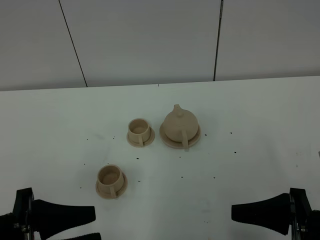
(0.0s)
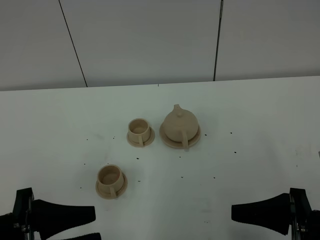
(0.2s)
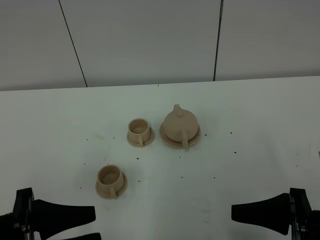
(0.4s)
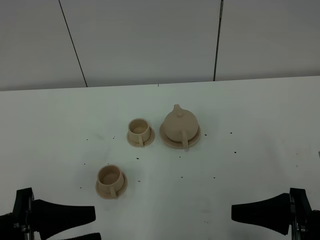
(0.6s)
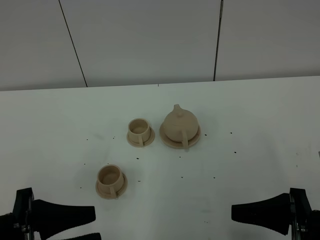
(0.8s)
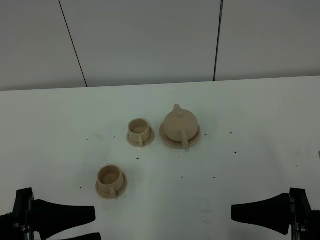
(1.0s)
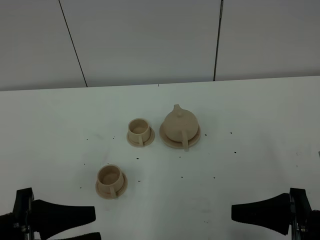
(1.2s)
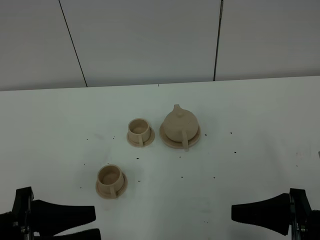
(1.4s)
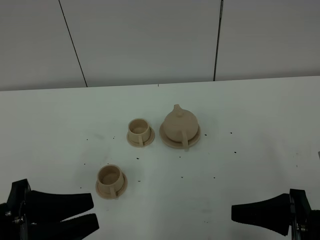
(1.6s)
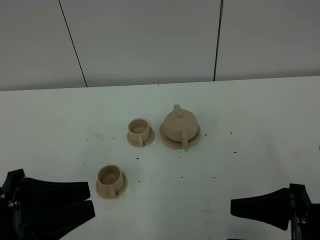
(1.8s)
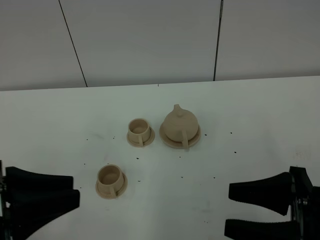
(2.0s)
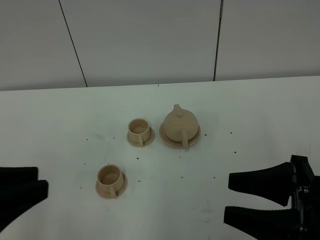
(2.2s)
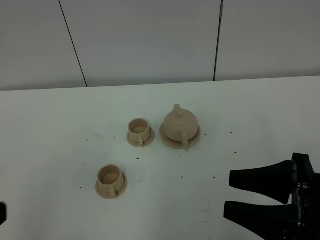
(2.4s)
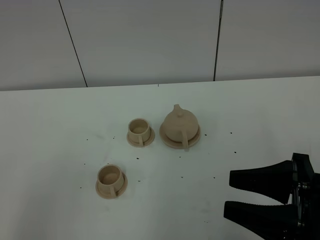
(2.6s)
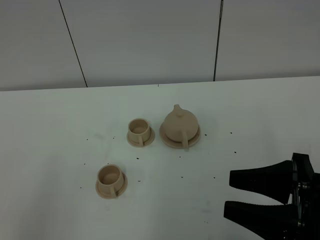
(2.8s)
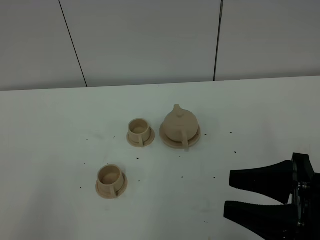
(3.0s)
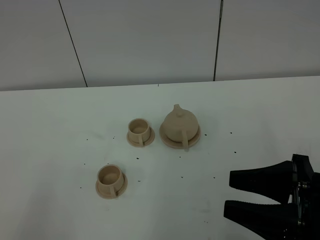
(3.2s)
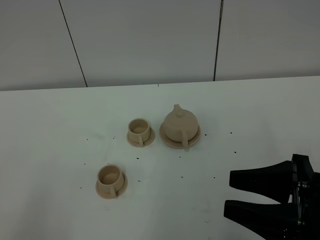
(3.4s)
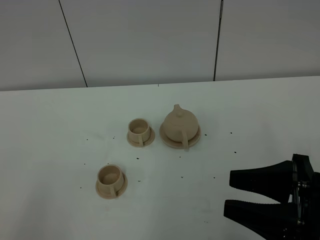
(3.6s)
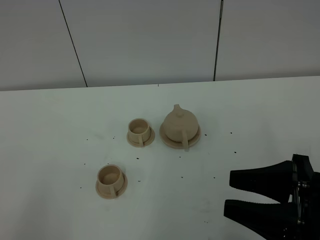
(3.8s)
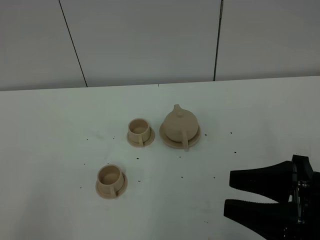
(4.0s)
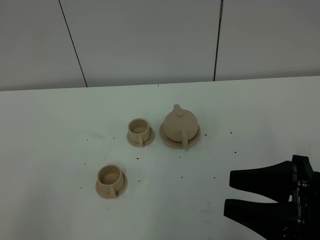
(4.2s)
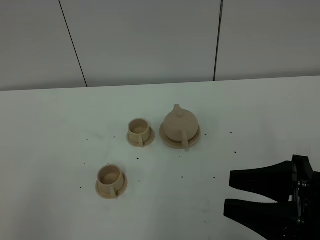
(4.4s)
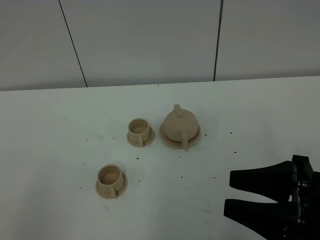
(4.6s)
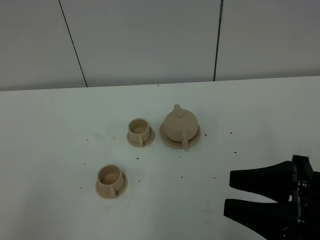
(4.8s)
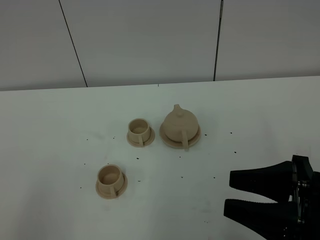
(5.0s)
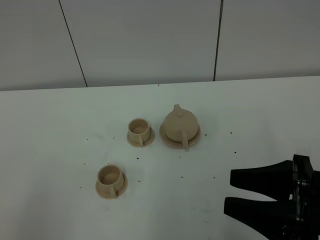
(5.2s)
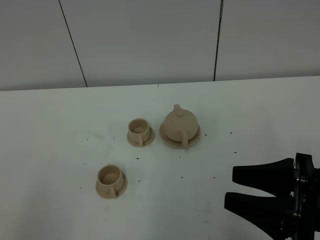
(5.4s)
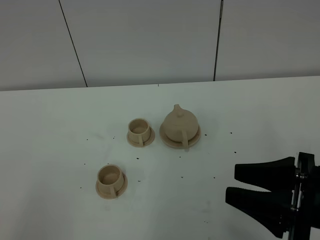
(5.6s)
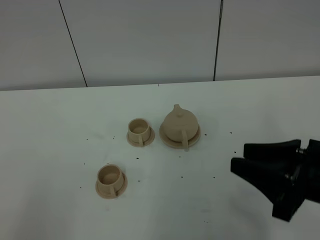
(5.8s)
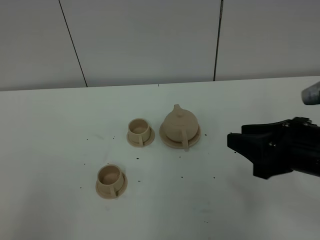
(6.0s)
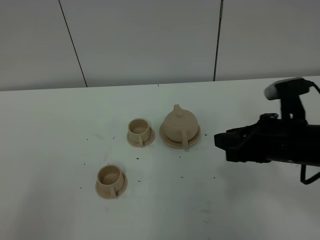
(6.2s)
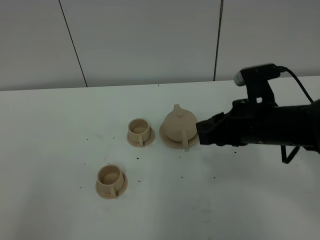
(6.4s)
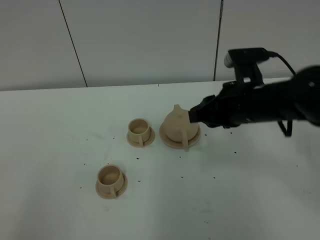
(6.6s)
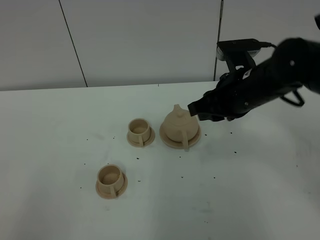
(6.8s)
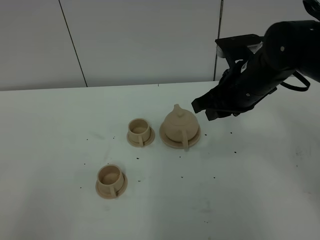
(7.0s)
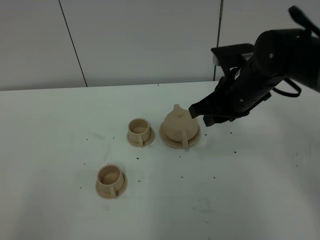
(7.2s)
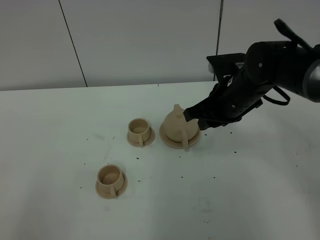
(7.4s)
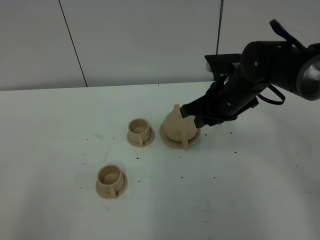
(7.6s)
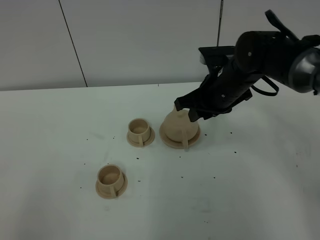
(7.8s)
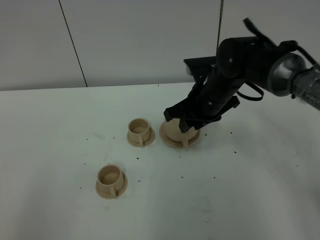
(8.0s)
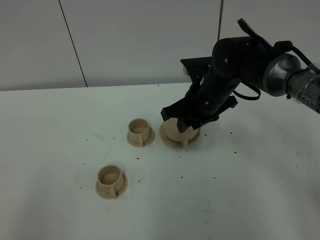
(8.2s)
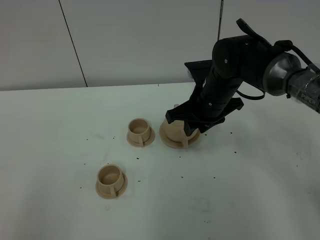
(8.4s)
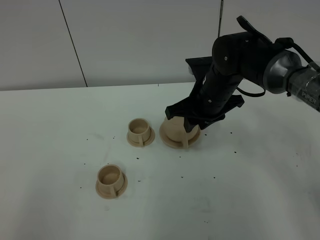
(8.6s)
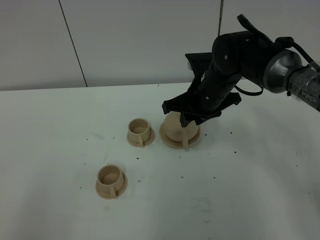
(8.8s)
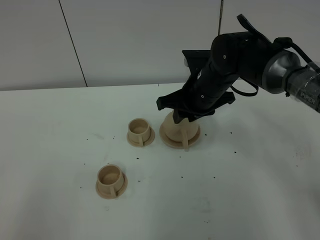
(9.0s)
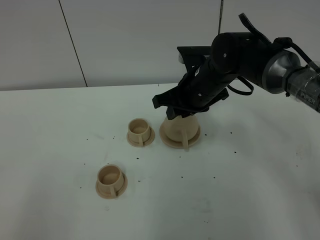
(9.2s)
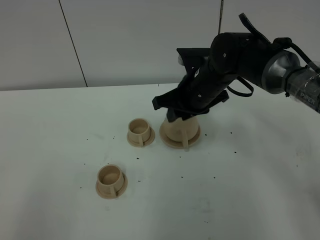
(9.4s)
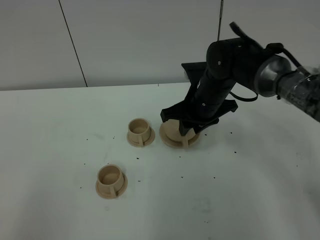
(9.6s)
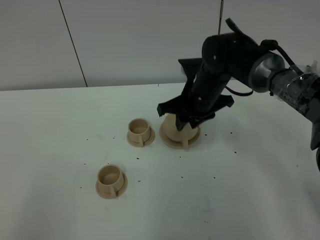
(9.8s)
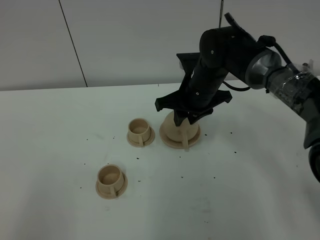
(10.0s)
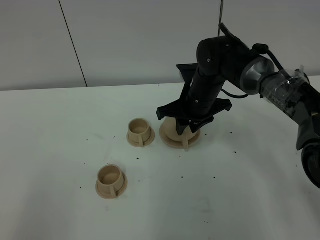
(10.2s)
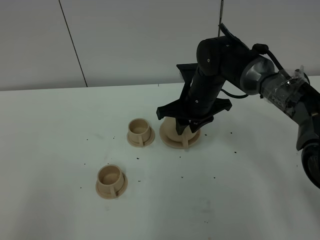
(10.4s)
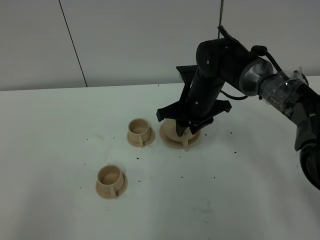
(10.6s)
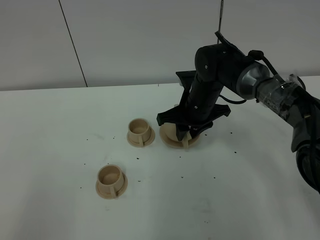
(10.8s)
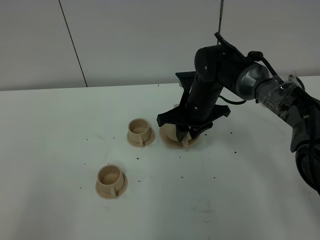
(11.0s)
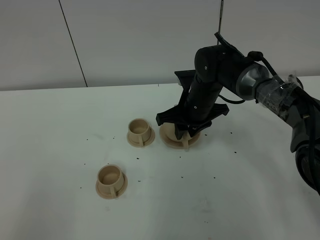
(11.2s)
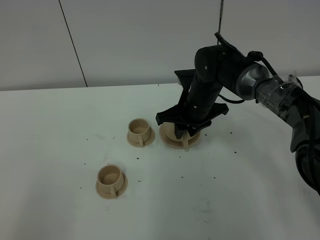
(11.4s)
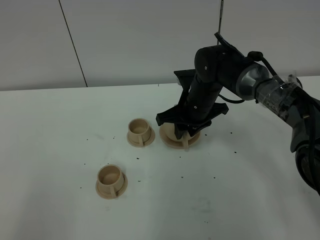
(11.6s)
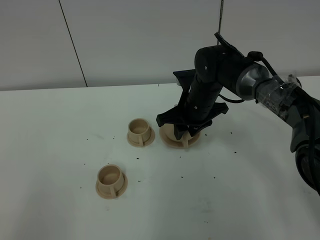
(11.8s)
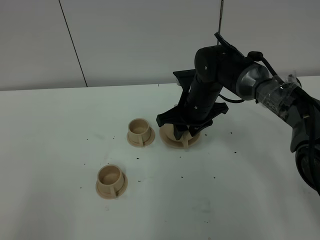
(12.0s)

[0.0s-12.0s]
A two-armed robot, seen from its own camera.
Task of the whole recording: grasp the brown teapot and pour the tea into the two brown teacups one by one, put the brown teapot back in its original place.
0.0s to 1.6s: The grippers make only small movements.
1.6s to 3.0s: The left gripper travels backward and to the left by some 15 cm, and closes up.
4.4s to 6.0s: The right gripper shifts approximately 10 cm forward.
6.0s to 7.6s: The right gripper travels forward and to the left by approximately 20 cm.
7.6s to 9.0s: The grippers make only small movements.
9.0s to 12.0s: The grippers stay close to where they were, moving slightly.

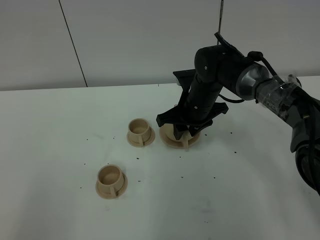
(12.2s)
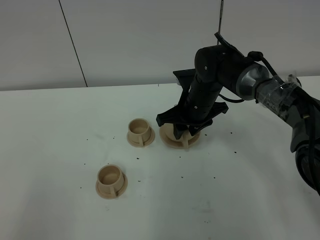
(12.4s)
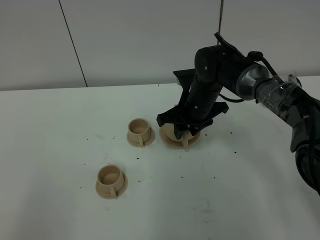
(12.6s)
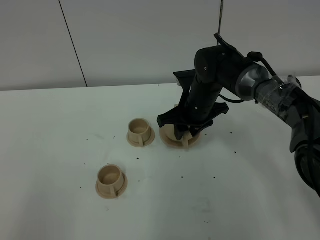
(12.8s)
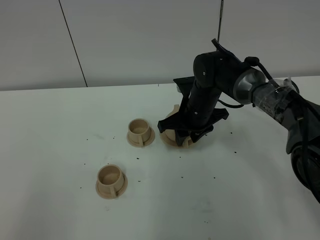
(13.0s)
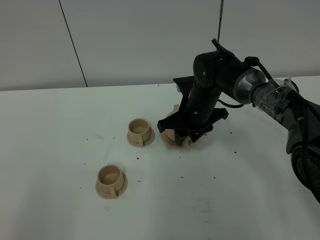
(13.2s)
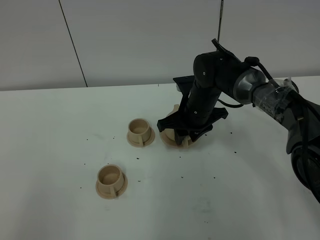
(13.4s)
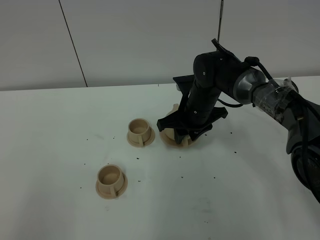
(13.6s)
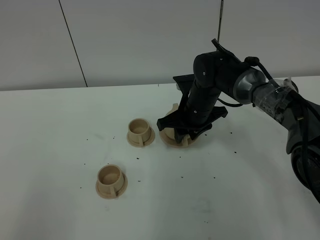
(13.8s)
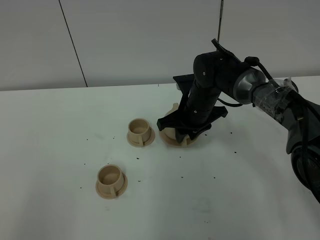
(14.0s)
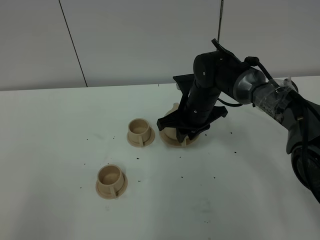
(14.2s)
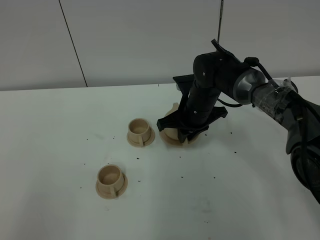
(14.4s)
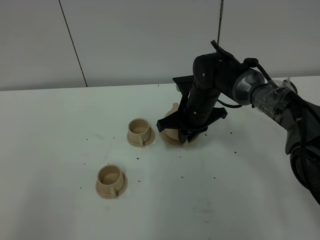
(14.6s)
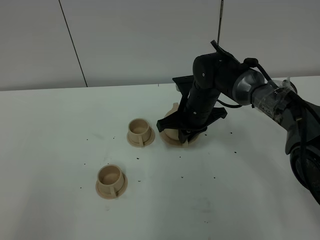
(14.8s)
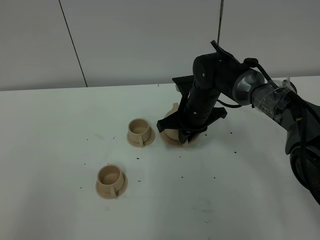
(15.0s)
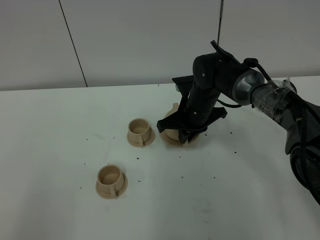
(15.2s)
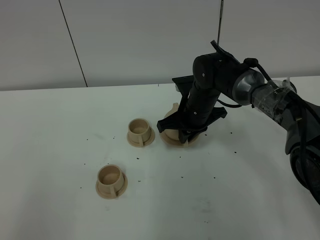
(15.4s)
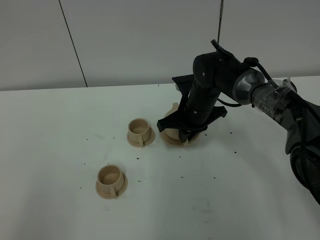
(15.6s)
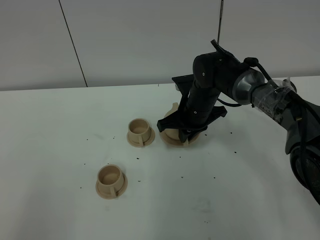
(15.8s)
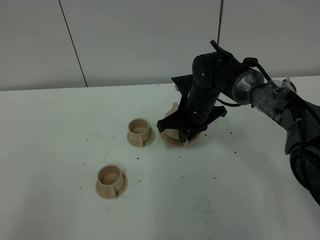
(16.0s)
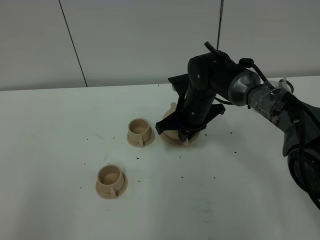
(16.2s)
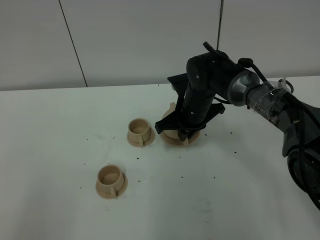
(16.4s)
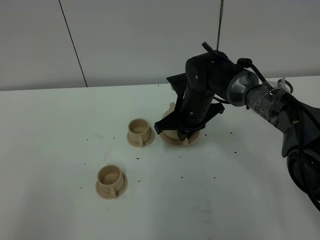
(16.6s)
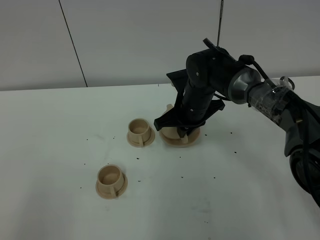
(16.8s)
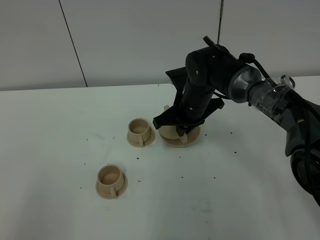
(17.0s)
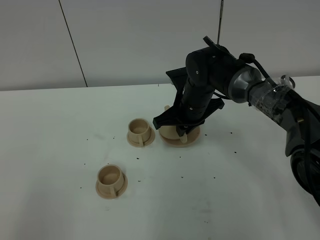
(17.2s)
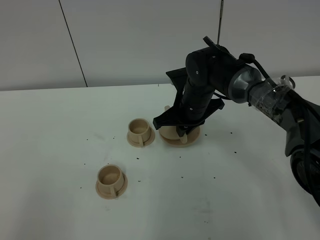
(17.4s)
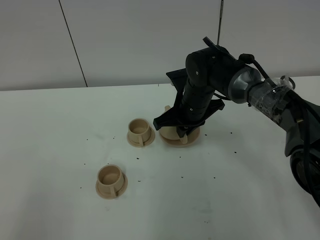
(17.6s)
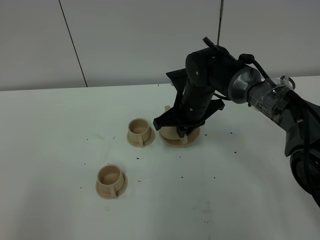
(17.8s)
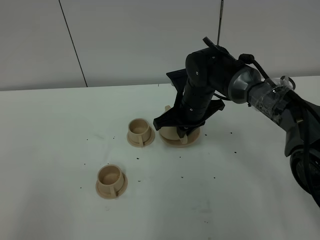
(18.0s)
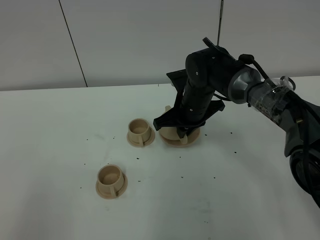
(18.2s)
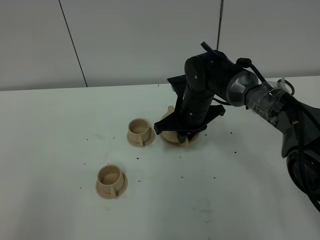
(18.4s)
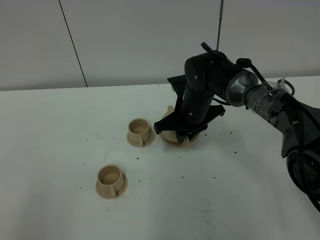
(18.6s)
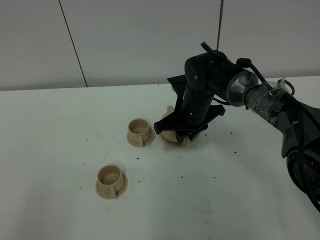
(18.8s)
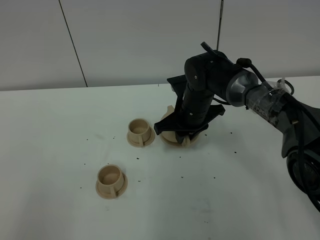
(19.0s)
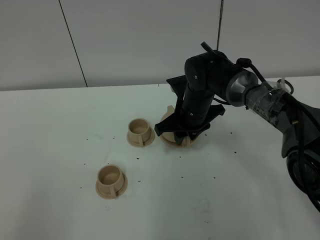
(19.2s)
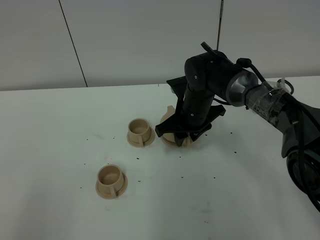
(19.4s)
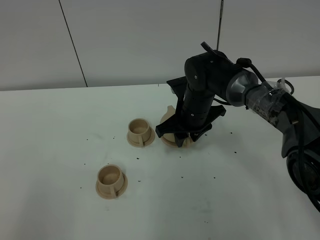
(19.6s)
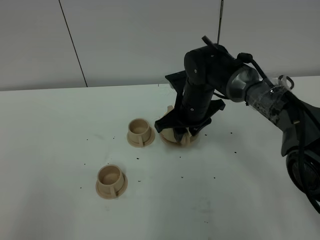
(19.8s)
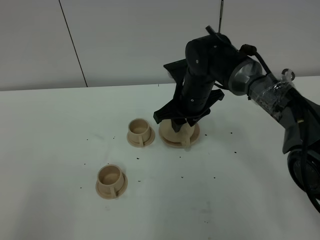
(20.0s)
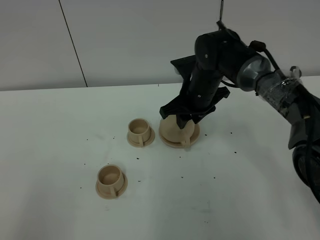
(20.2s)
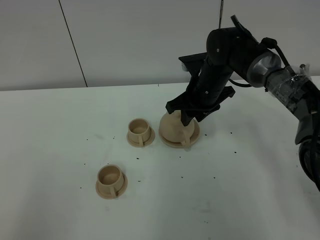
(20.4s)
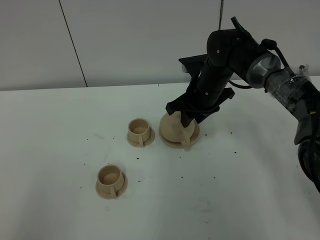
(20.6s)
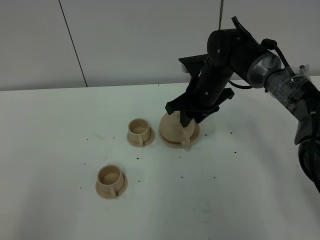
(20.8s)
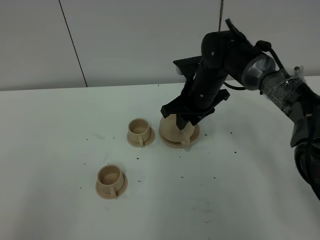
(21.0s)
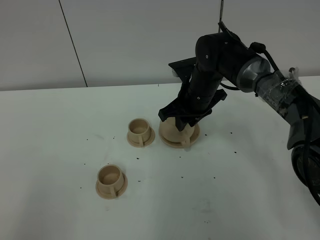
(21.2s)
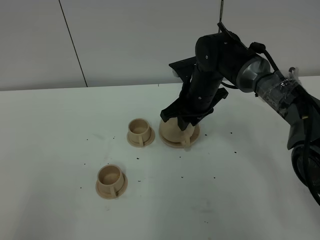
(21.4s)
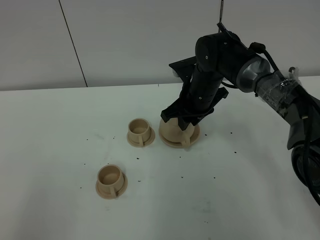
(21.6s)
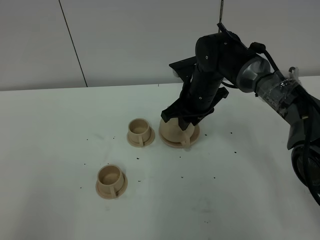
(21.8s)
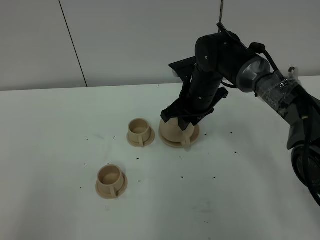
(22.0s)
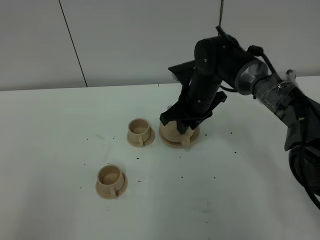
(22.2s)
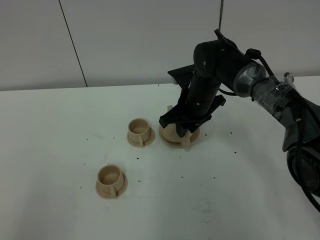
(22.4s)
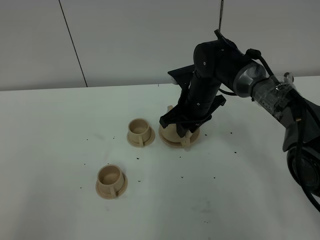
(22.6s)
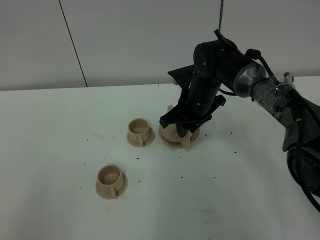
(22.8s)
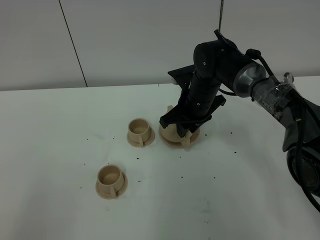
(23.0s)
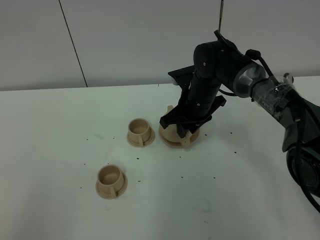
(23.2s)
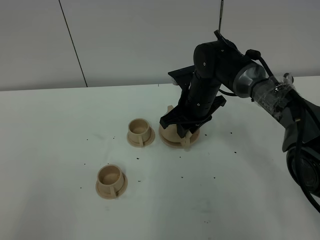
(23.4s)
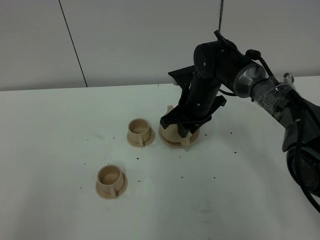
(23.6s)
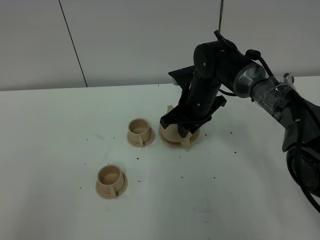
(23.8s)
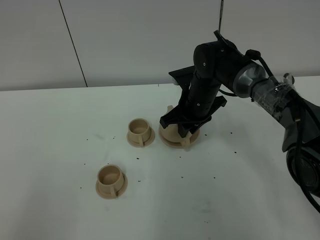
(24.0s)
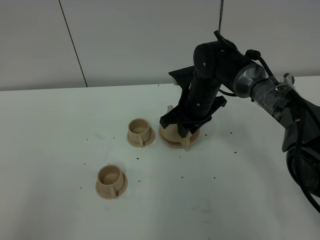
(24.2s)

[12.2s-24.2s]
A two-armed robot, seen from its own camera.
Task of the whole recording: grasp the brown teapot and pour the tea into the two brown teacups one by one, put the brown teapot back in its original place.
12.2s to 13.8s: The grippers stay close to where they were, moving slightly.
13.8s to 15.2s: The right gripper closes its fingers.
15.2s to 16.6s: There are only small adjustments of the grippers.
16.6s to 18.2s: Both grippers stay put.
18.2s to 19.8s: The right gripper opens its fingers.
19.8s to 22.6s: The grippers stay close to where they were, moving slightly.
22.6s to 24.2s: The two grippers keep their place.
